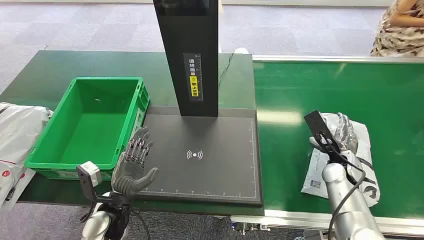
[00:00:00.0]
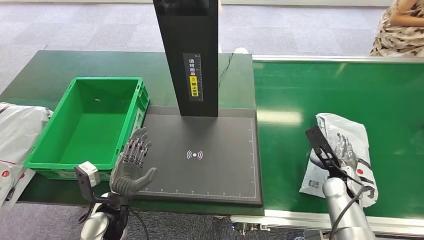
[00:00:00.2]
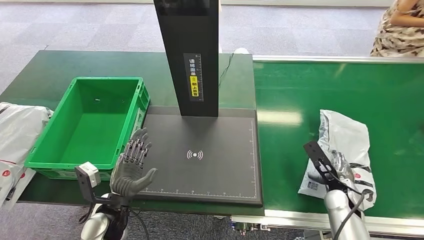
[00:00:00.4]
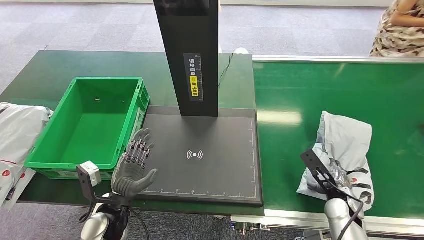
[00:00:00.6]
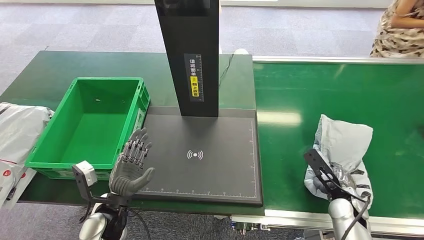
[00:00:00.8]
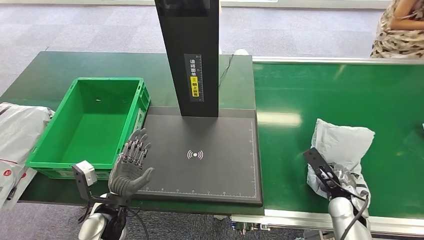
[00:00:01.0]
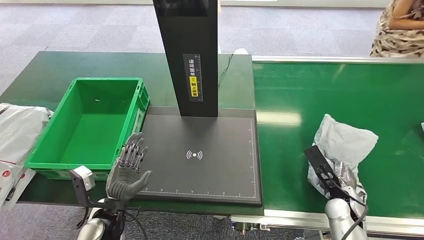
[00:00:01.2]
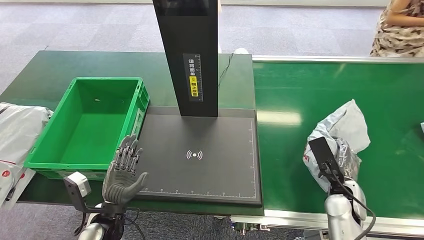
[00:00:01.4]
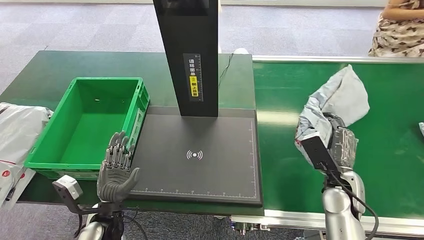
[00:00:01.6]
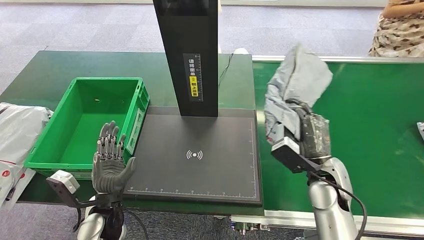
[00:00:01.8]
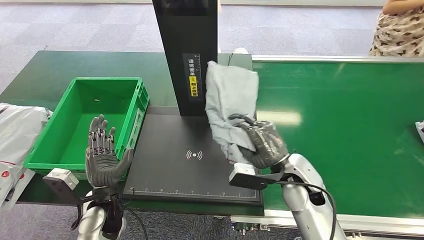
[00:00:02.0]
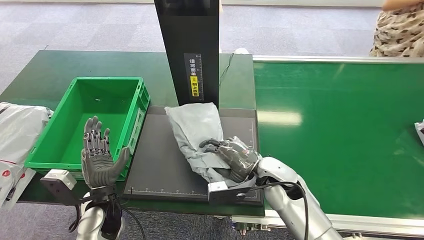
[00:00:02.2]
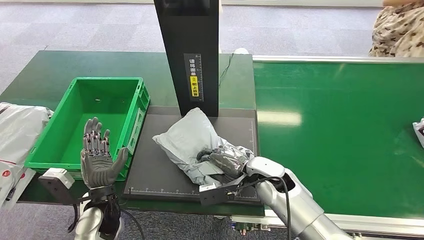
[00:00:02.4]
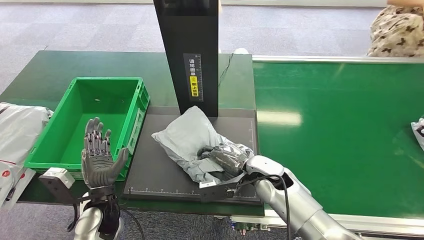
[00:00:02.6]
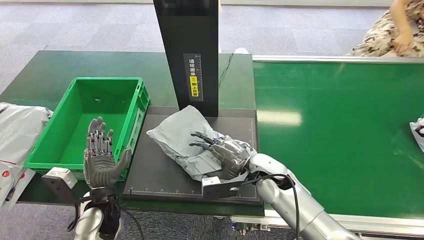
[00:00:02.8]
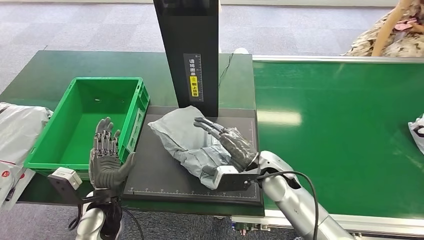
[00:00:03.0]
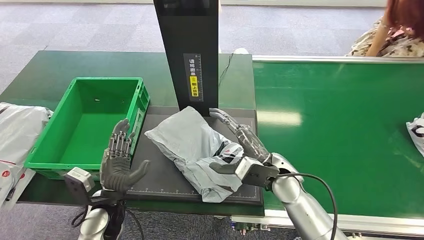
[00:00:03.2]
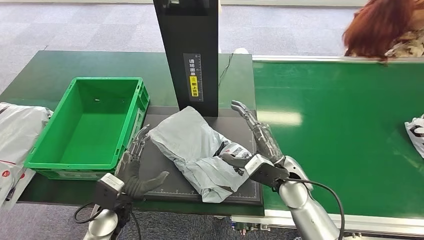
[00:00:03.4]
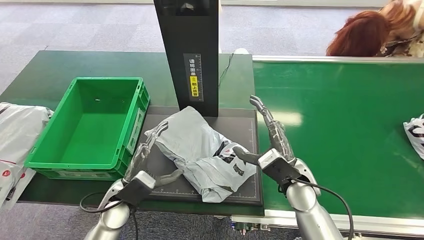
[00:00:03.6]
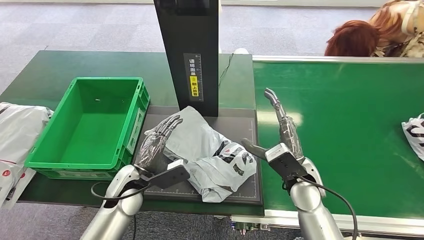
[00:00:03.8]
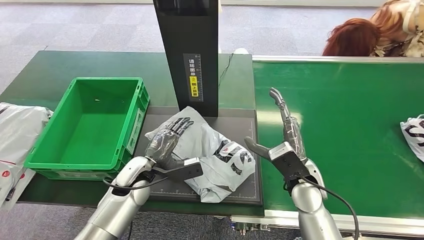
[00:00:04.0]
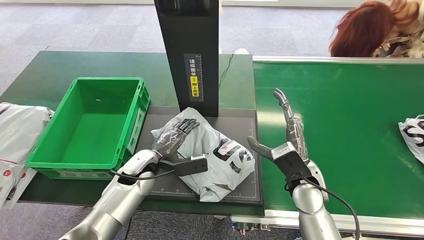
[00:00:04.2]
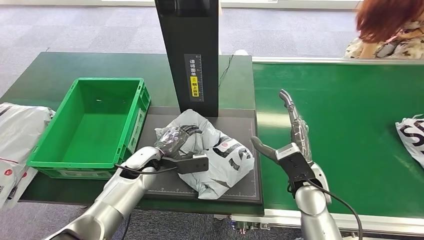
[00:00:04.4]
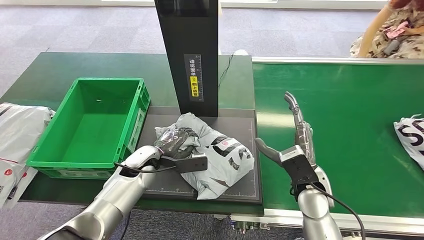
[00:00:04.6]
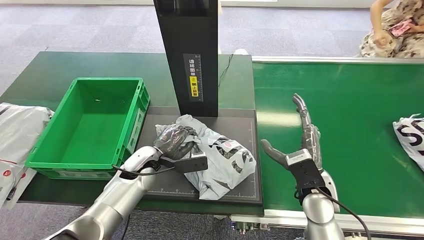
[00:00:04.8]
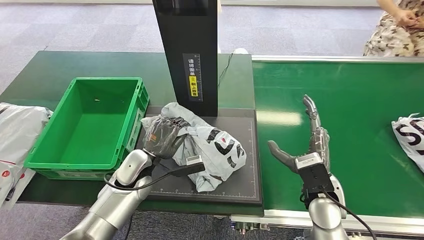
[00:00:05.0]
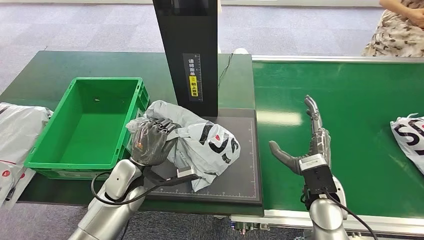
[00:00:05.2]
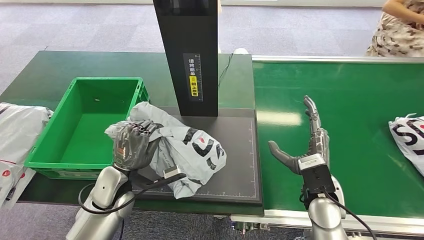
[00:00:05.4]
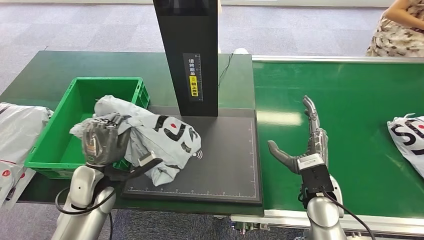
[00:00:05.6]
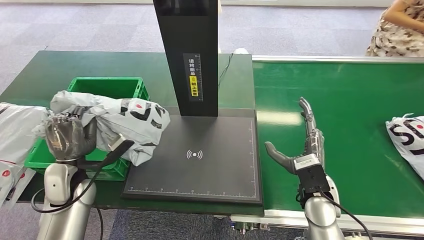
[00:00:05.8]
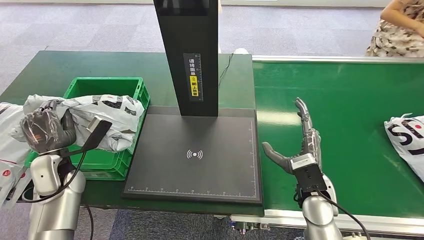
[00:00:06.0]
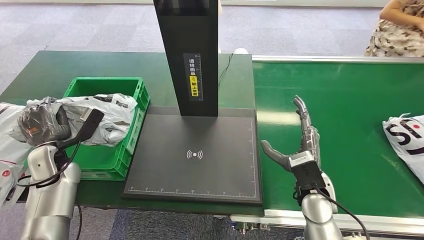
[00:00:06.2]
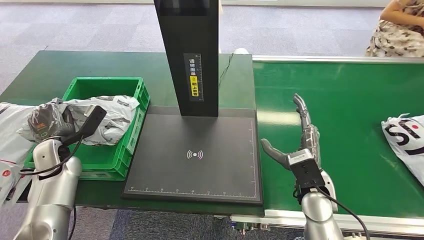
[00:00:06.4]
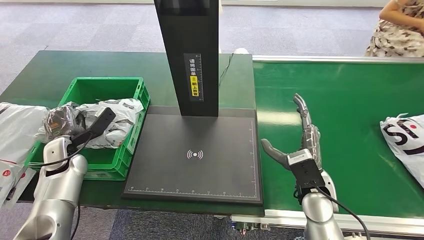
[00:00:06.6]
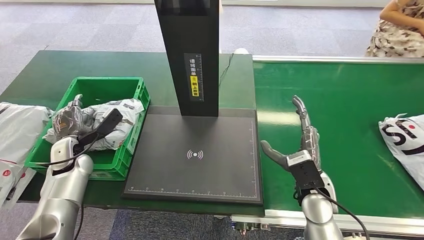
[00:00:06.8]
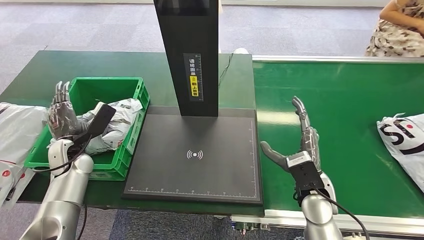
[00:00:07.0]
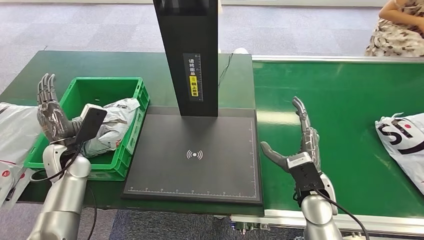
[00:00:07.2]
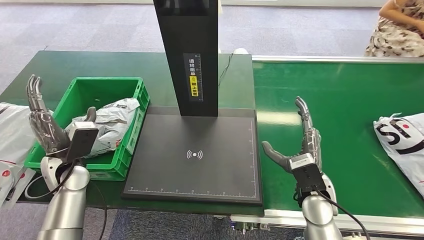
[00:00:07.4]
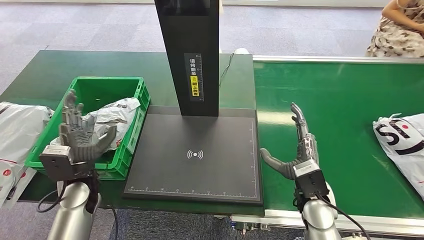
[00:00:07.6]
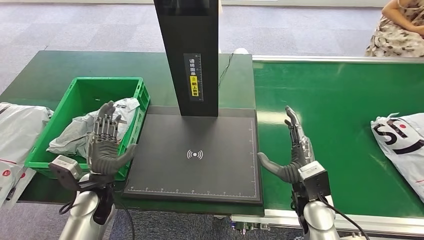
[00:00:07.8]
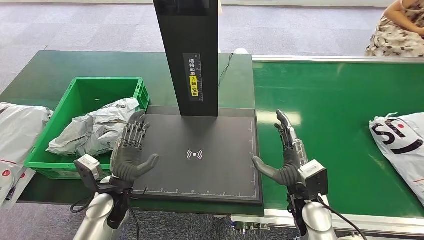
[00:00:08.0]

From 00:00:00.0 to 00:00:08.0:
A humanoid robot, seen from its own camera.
Task of the whole recording: Weigh the package on the weighing device and place it in the left basket.
Step, from 00:00:00.0 to 00:00:01.6: Pick up the package from the conveyor belt.
Step, from 00:00:02.0 to 00:00:03.6: Place the package onto the inbound machine.
Step, from 00:00:04.0 to 00:00:06.0: Pick up the package from the inbound machine.
Step, from 00:00:06.2 to 00:00:08.0: Place the package into the parcel locker.
From 00:00:06.4 to 00:00:08.0: The left hand is displaced to the right and backward by some 20 cm.
